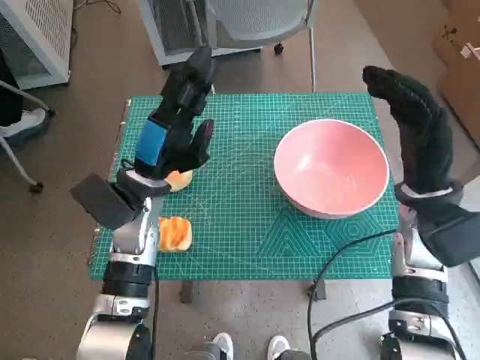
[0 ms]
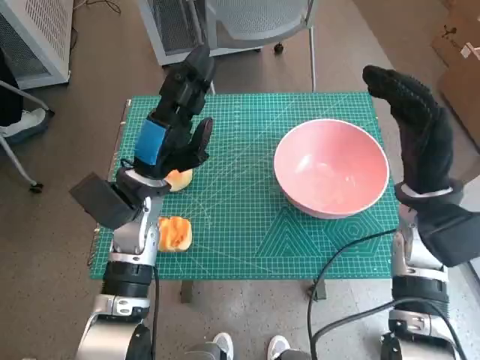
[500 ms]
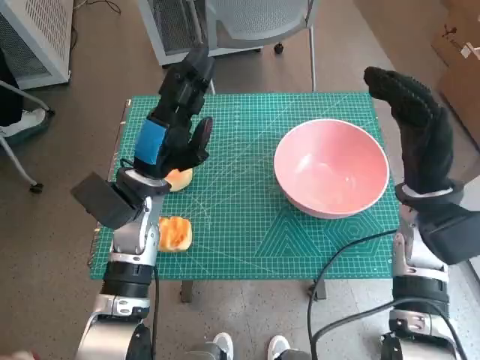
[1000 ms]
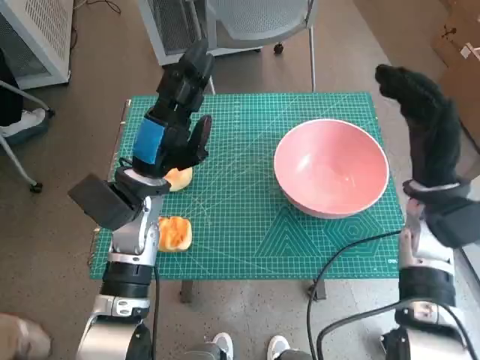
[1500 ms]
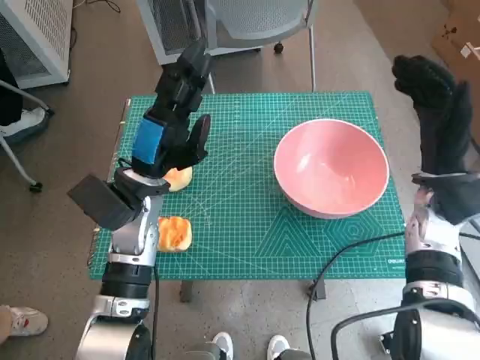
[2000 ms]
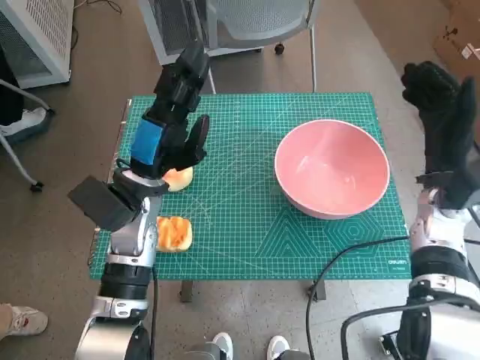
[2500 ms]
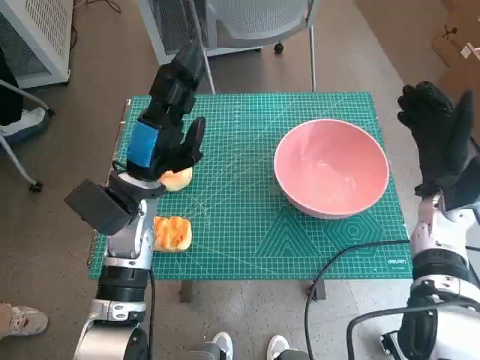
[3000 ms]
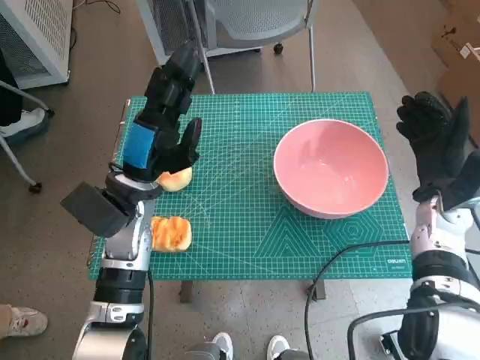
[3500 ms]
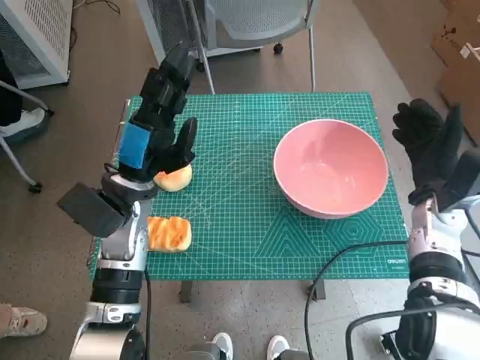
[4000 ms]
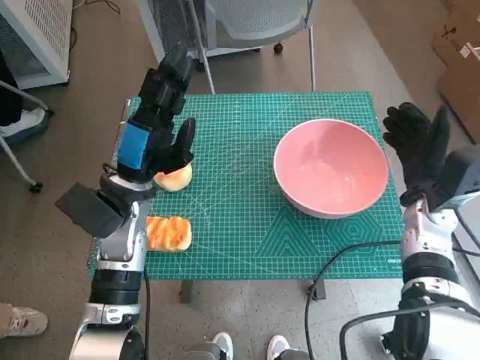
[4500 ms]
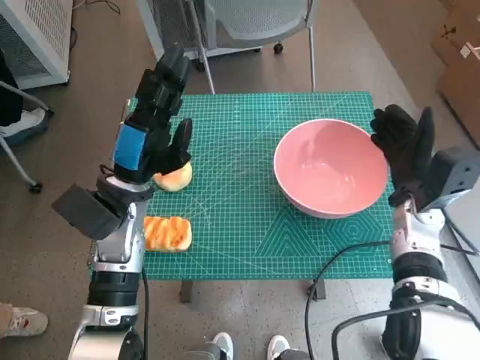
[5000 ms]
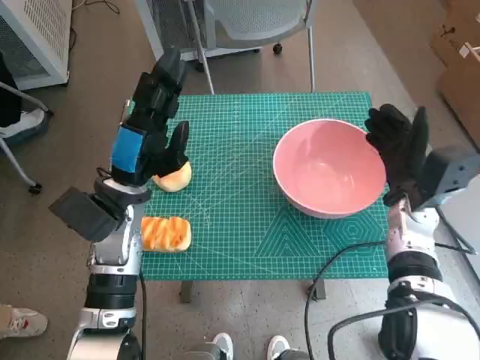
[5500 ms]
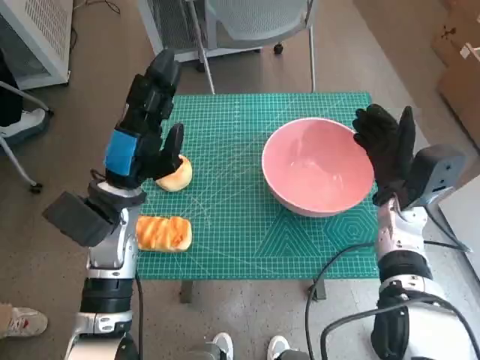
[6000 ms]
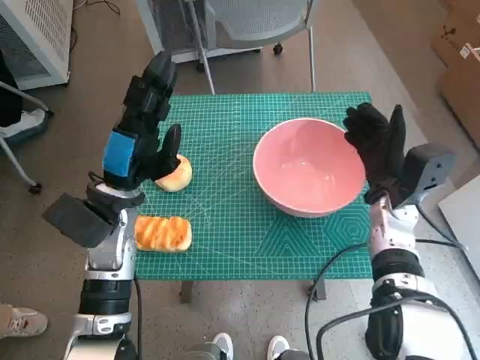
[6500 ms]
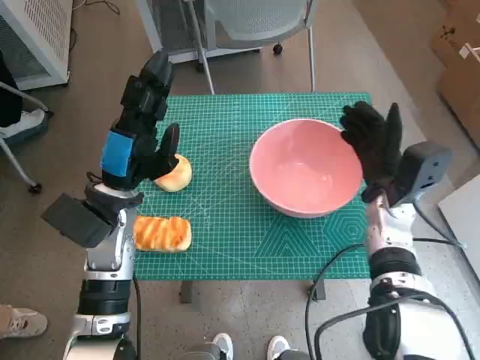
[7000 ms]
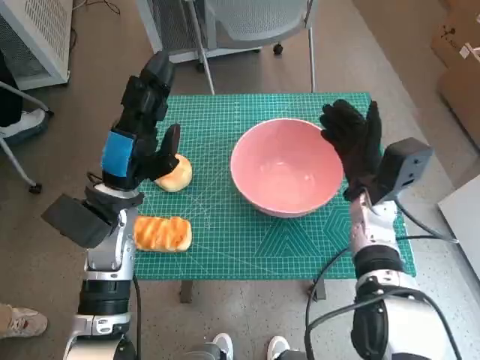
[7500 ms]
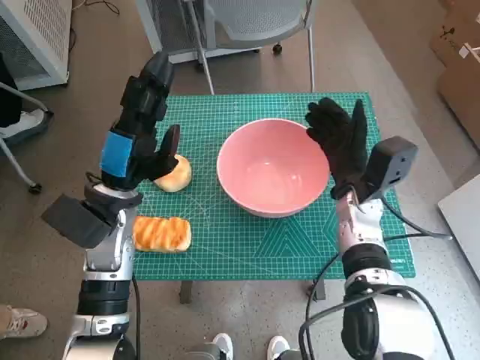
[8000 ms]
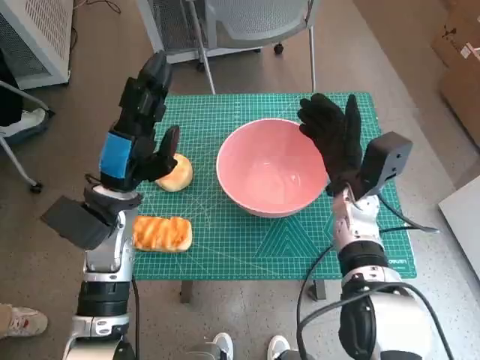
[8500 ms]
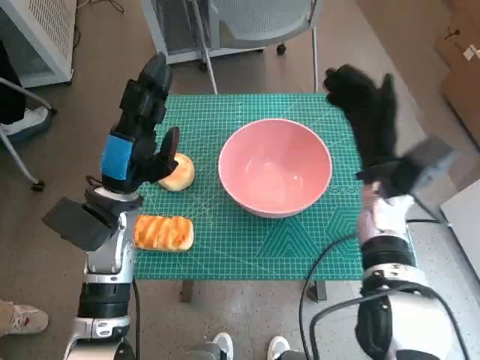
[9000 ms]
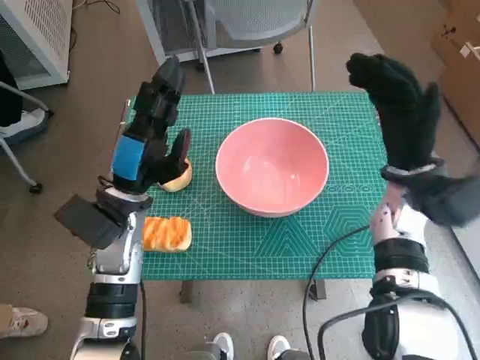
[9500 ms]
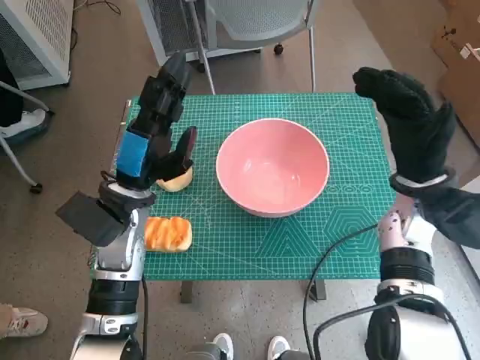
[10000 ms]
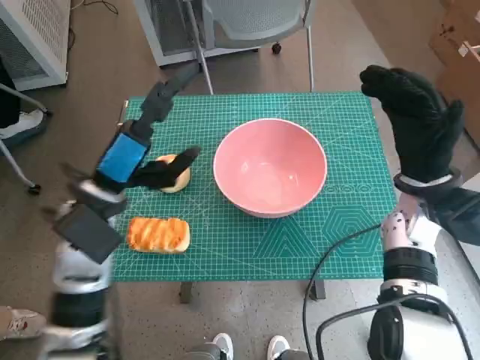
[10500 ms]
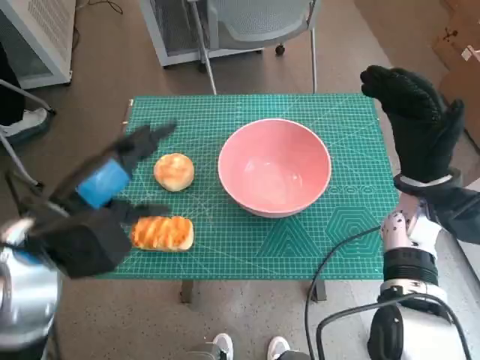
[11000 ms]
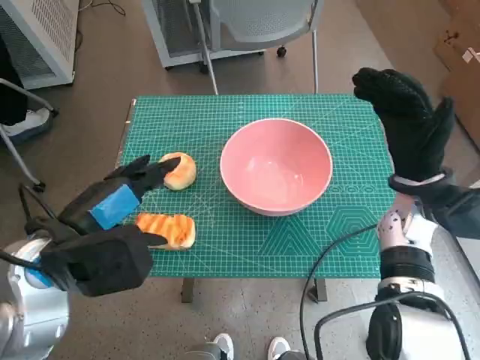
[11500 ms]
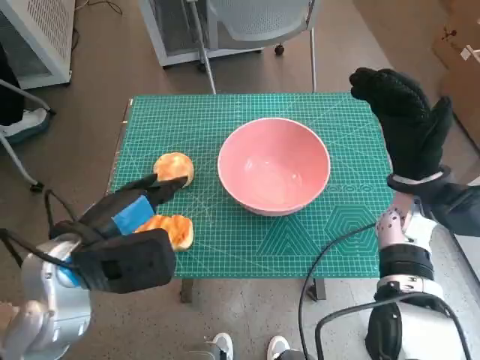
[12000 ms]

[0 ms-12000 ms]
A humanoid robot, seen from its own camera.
Step, 0 ms to 8500 ms: Move the pink bowl to the center of table with right hand.
6000 ms to 8000 ms: The right hand shifts about 5 cm to the left.
8000 ms to 10000 ms: The right hand moves to the right and upward, about 10 cm.
10000 ms to 12000 ms: The left hand moves backward, some 10 cm.

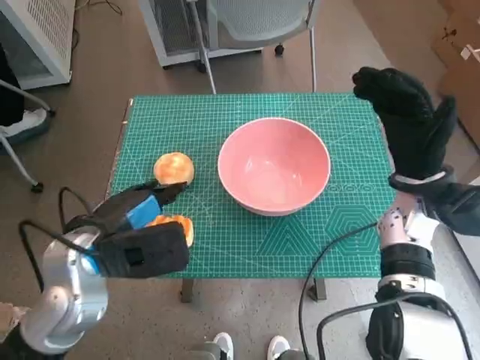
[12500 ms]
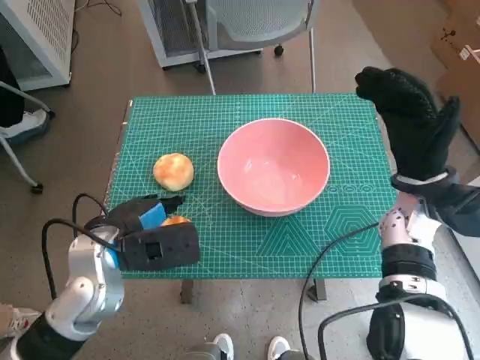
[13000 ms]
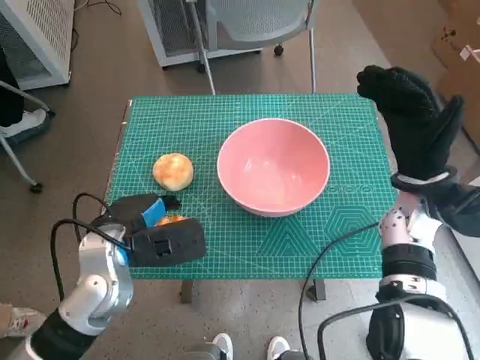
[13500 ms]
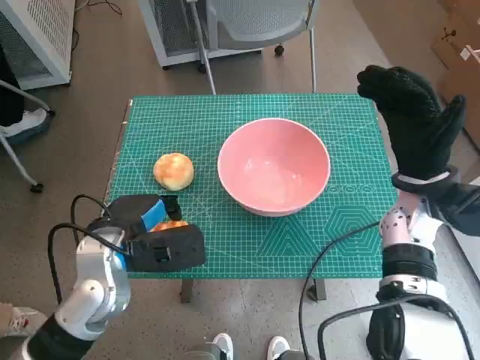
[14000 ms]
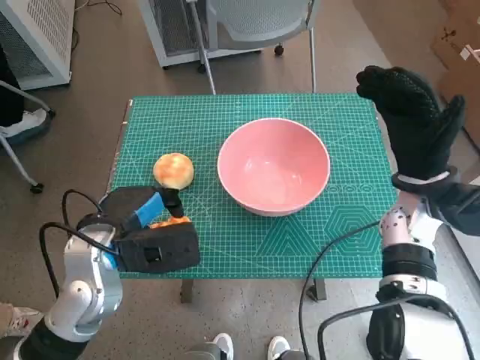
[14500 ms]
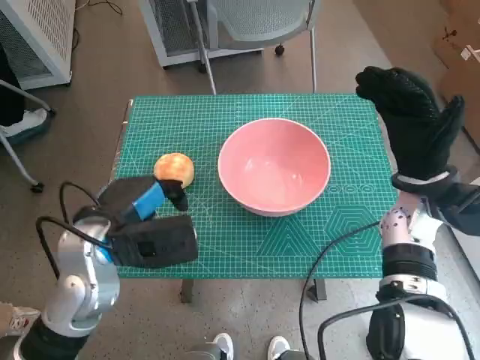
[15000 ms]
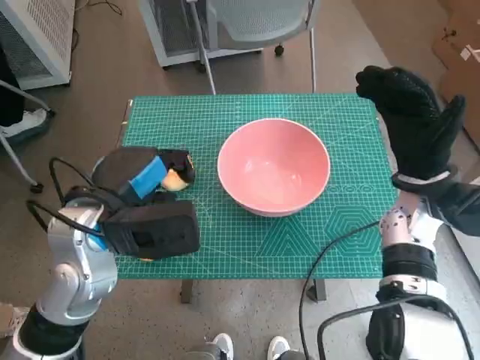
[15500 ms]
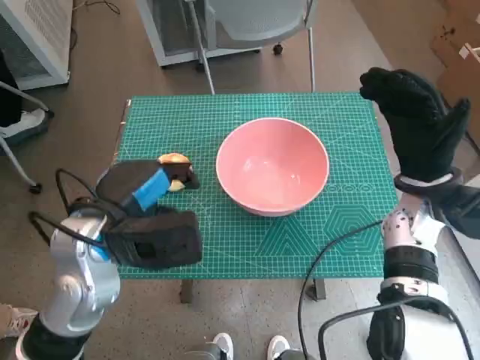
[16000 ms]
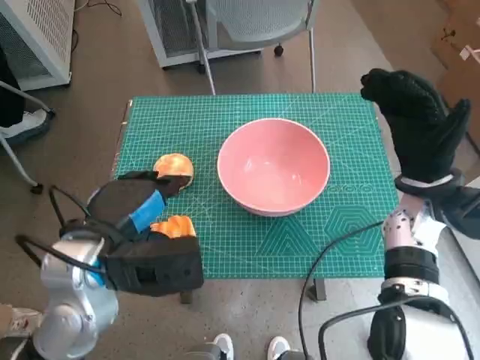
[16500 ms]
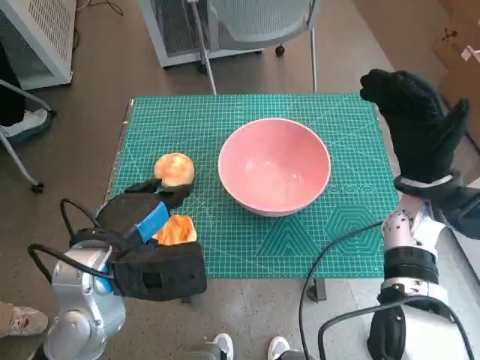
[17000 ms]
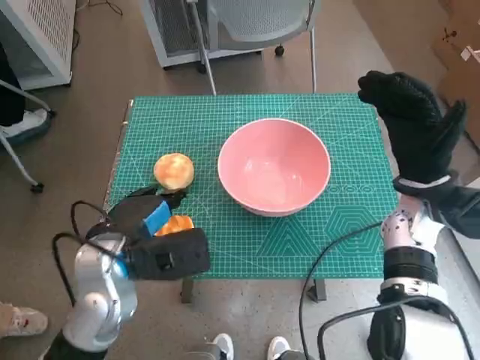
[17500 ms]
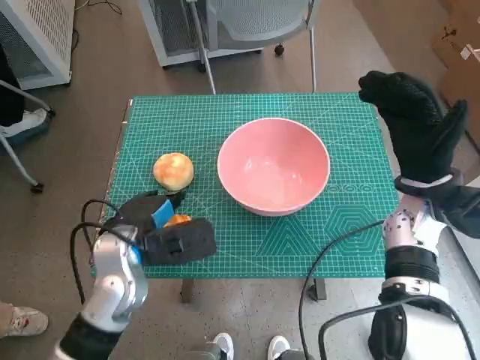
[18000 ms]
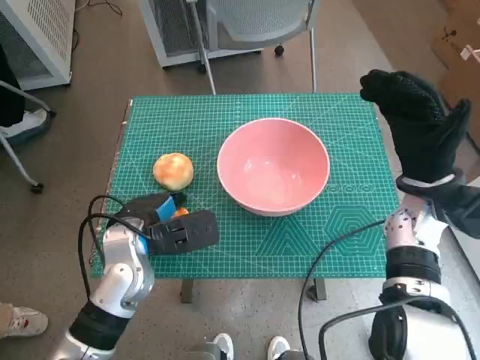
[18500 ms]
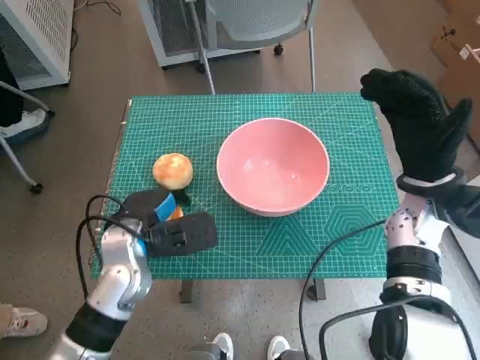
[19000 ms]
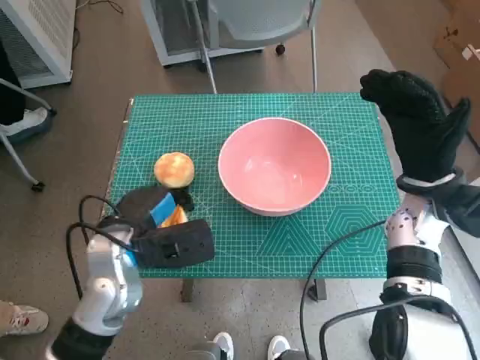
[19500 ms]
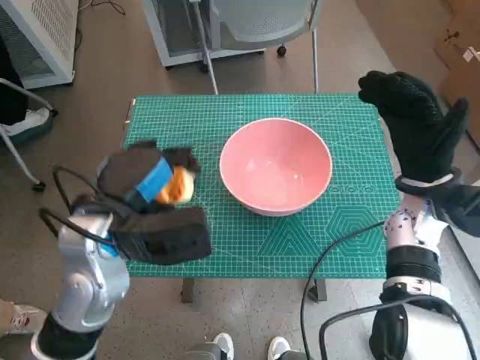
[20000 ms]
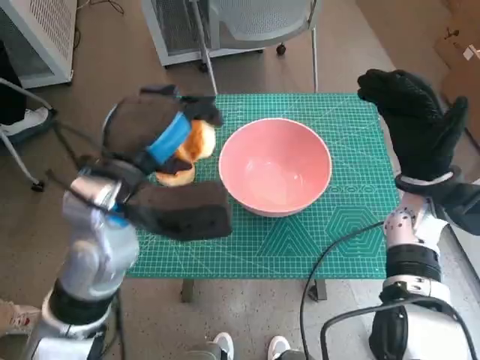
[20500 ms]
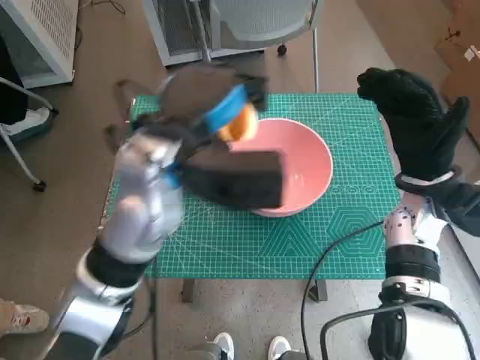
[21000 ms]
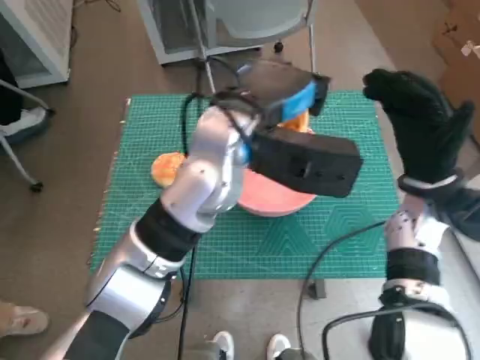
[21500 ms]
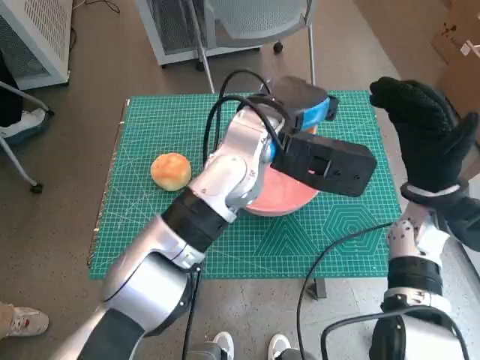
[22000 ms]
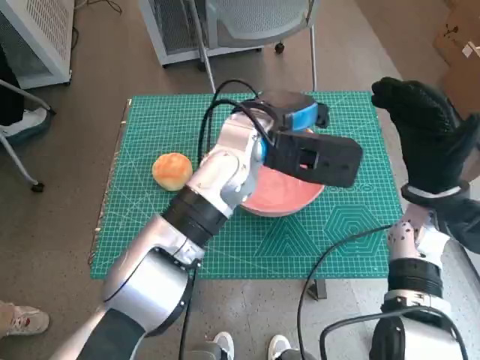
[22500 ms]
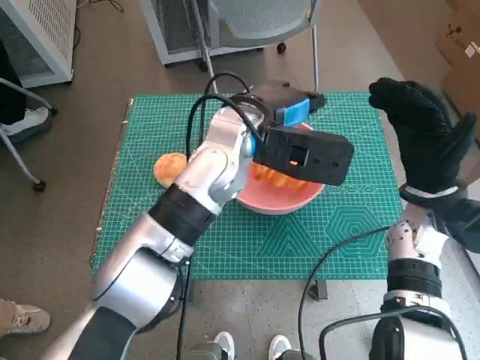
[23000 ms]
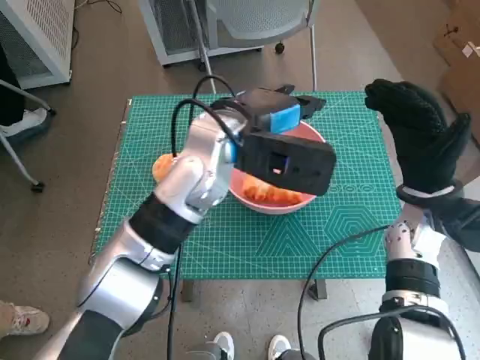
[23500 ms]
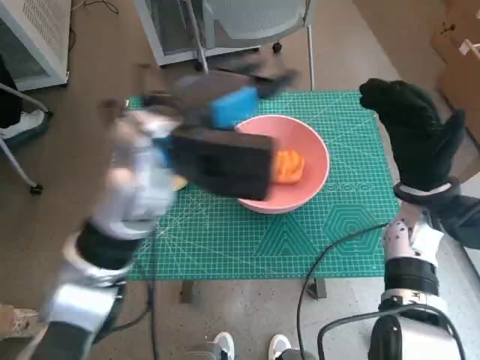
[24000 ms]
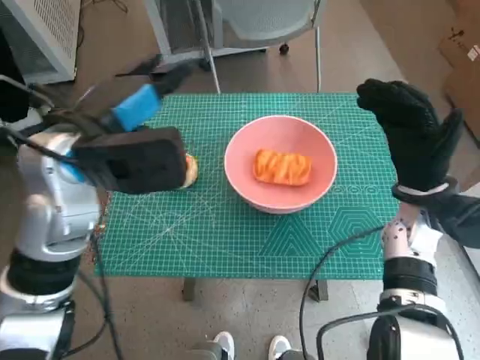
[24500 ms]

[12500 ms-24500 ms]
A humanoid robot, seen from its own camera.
Step, 12500 ms to 18500 ms: Grasp the long bread with left hand.
Step, 19000 ms to 23000 ms: Place the long bread in pink bowl with left hand.
12500 ms to 14500 ms: The hands move only a little.
14500 ms to 16500 ms: The left hand ends up about 5 cm from where it was.
16500 ms to 18500 ms: The left hand travels downward and forward by roughly 10 cm.
18500 ms to 20500 ms: The left hand moves upward, some 15 cm.
20500 ms to 22500 ms: The left hand heads to the right and forward, covering roughly 15 cm.
22500 ms to 24500 ms: The left hand shifts about 15 cm to the left.

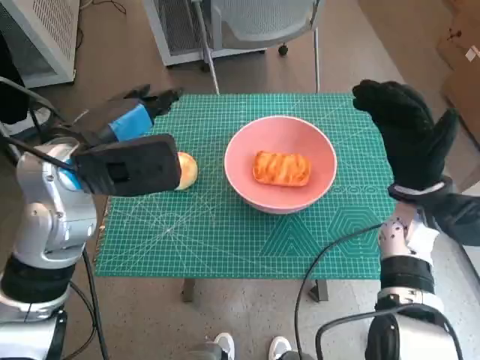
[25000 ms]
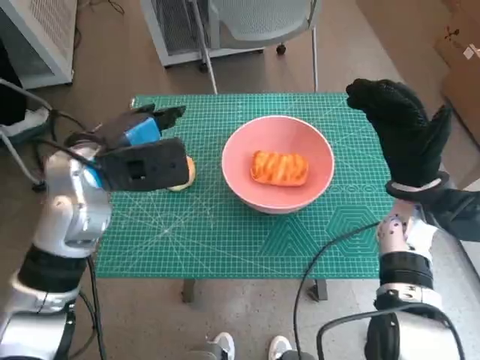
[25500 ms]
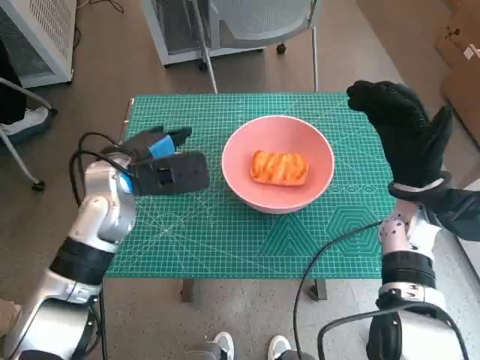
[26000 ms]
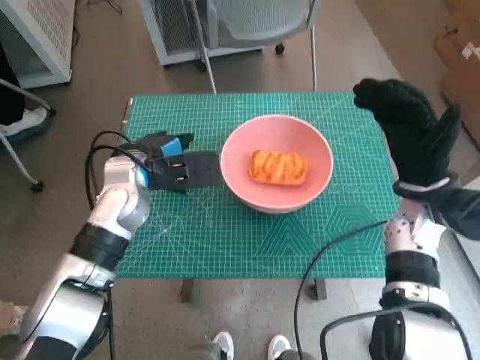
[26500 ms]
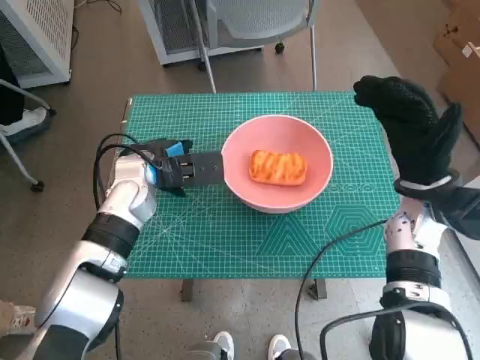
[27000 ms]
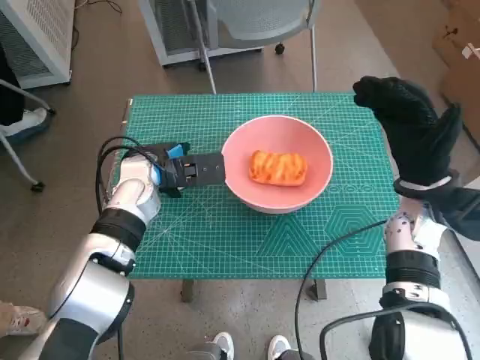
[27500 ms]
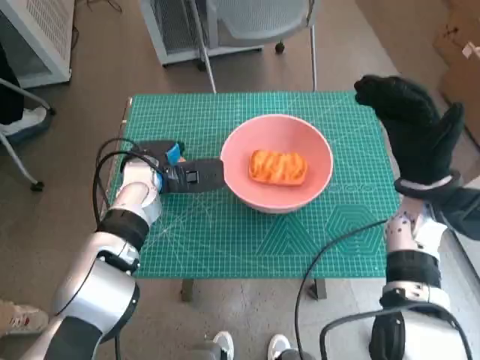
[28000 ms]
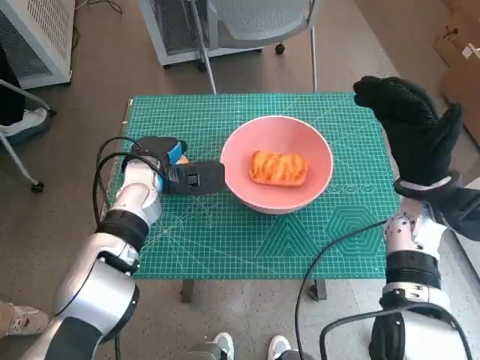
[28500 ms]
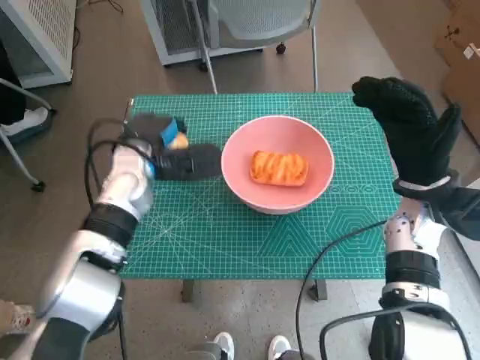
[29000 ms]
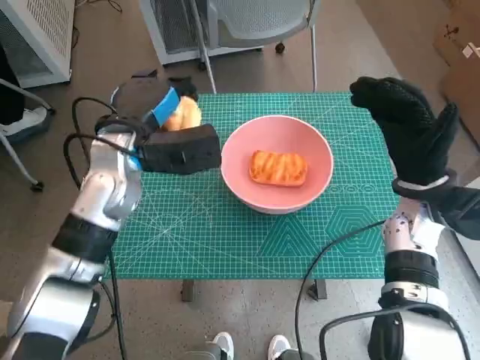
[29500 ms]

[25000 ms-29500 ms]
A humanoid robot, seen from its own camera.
Step, 25000 ms to 28000 ms: Grasp the round bread with left hand.
25000 ms to 27000 ms: The left hand goes some 15 cm downward and forward.
27000 ms to 29500 ms: The left hand is displaced upward by roughly 5 cm.
